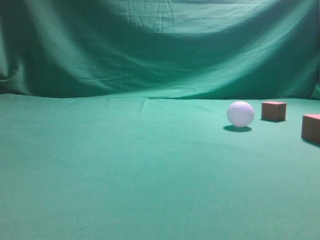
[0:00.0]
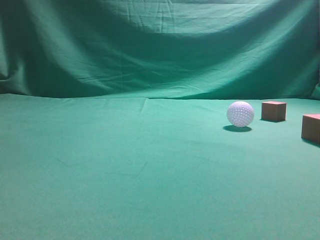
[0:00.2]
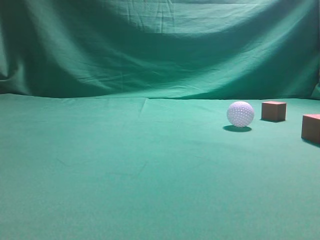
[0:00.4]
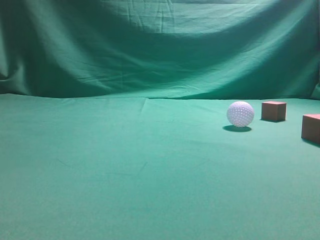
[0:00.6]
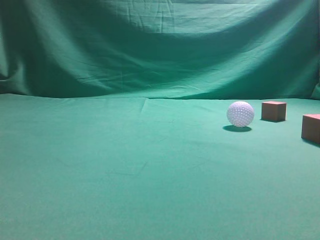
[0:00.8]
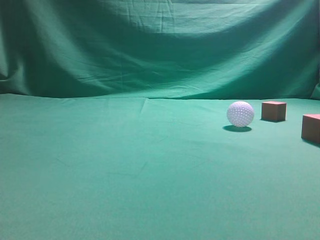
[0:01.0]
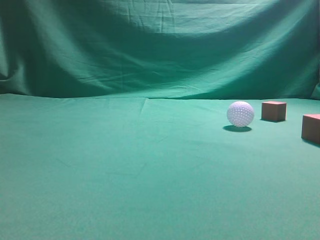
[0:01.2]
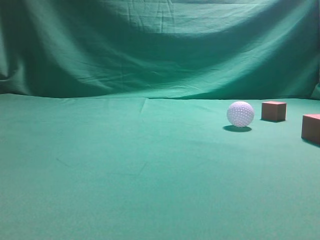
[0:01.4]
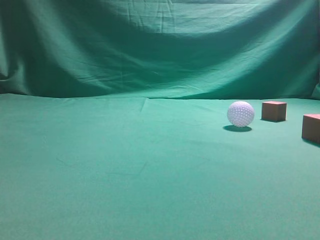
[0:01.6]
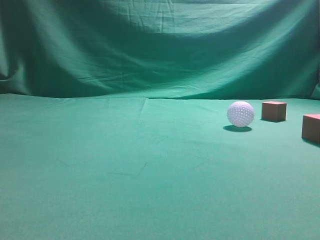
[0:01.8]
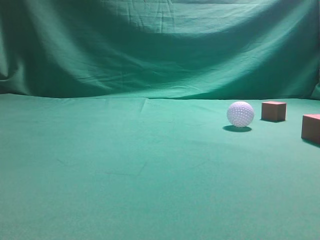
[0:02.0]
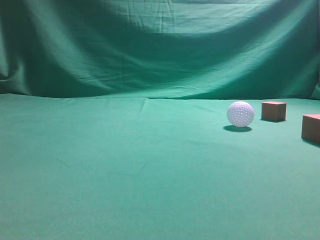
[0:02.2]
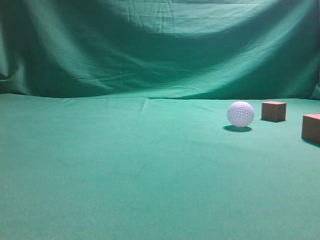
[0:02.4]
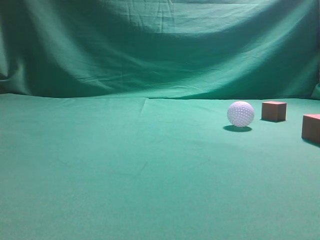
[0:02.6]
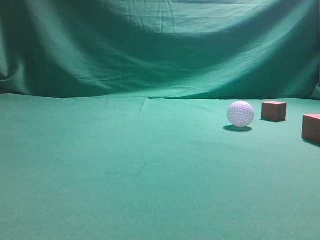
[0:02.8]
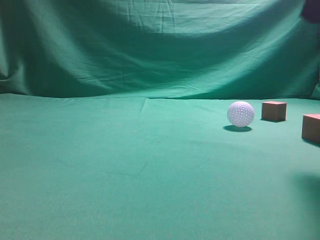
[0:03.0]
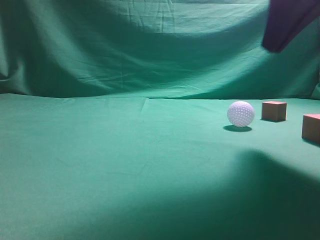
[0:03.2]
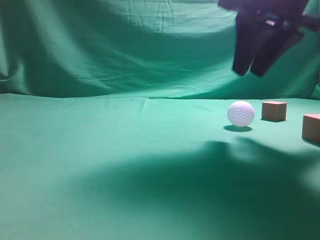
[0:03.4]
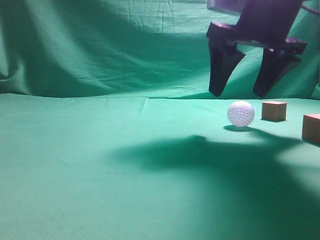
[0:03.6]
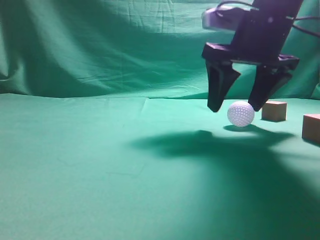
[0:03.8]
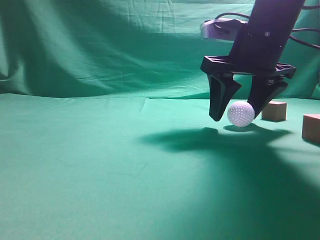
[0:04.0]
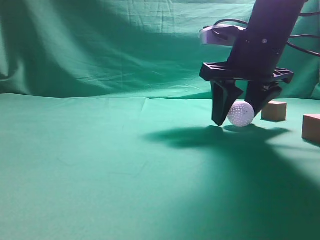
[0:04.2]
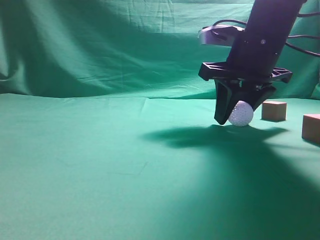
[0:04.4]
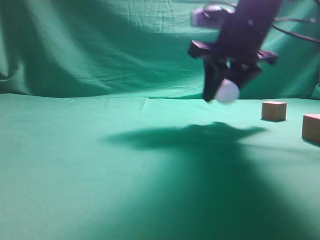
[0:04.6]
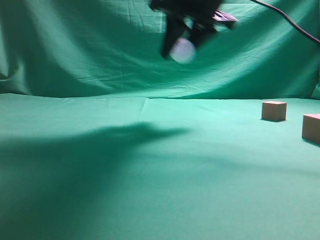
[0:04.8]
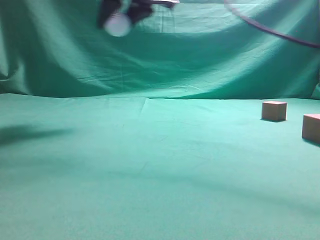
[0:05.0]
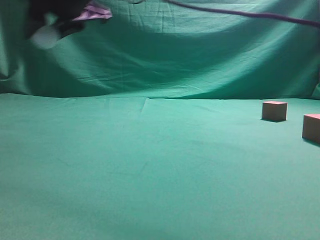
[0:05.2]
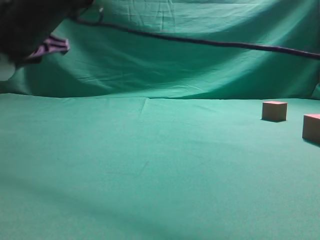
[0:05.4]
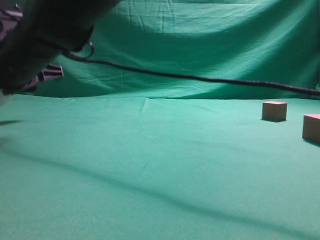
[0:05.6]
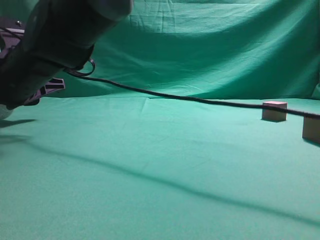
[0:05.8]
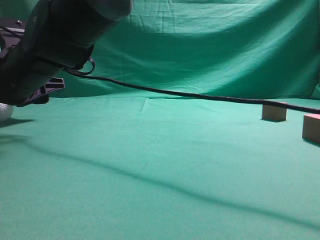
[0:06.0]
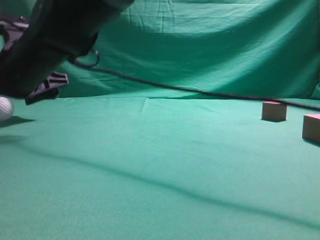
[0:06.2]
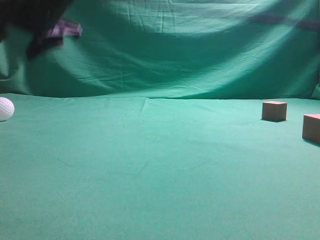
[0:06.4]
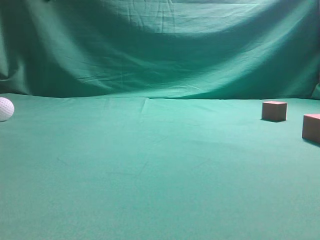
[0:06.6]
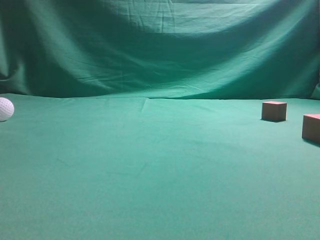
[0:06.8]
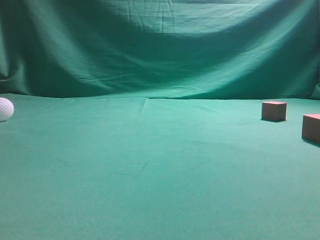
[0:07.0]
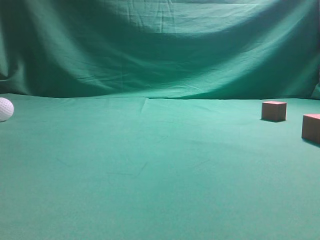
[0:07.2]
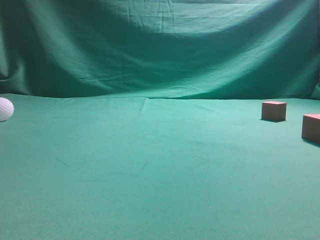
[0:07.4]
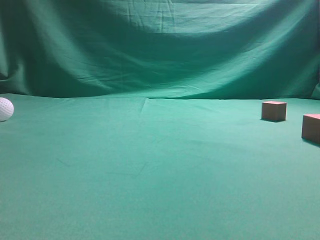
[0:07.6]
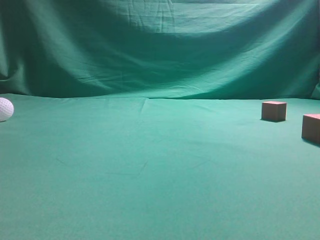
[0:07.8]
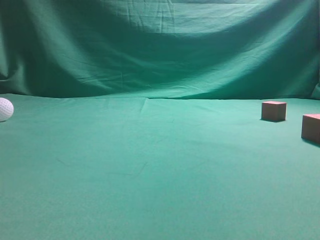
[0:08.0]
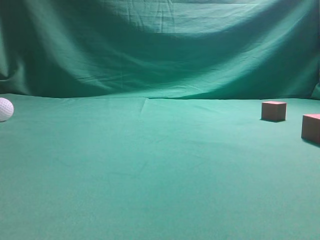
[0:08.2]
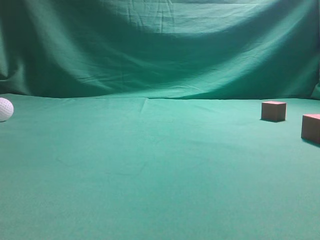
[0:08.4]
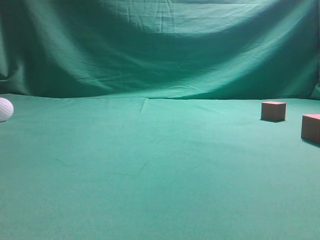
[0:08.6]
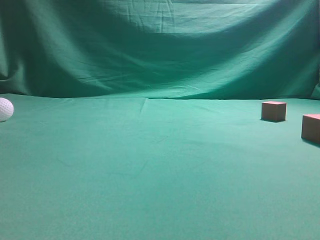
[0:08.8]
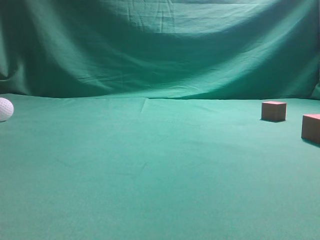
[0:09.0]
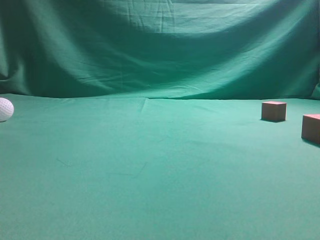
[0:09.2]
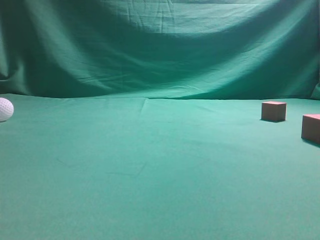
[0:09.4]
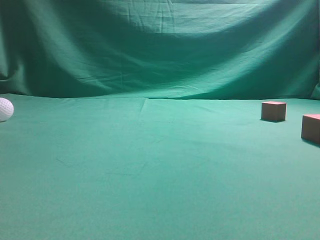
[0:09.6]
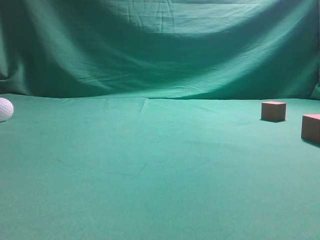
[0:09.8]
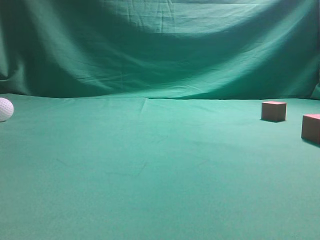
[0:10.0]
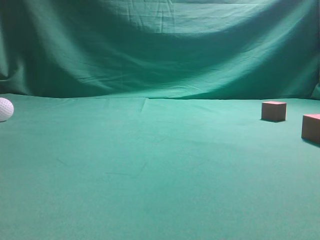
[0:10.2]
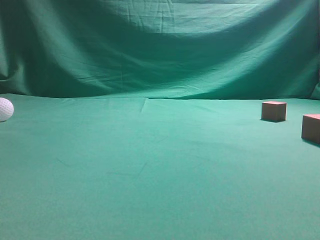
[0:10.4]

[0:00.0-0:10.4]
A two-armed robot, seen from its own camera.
Step, 0:00.0 to 0:03.8: Grasp the spherical object on the right side.
0:01.4 to 0:03.0: The right gripper moves forward and to the left, approximately 25 cm.
0:03.0 to 0:04.4: The right gripper moves forward, downward and to the left, about 15 cm, and opens up.
0:04.4 to 0:06.0: The right gripper heads to the left, covering about 30 cm, and opens.
0:06.0 to 0:07.4: The right gripper heads upward, to the right and backward, covering approximately 60 cm, and closes its fingers.
